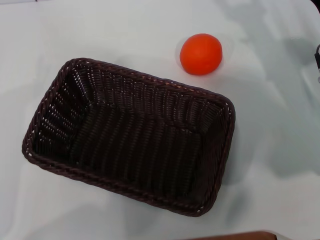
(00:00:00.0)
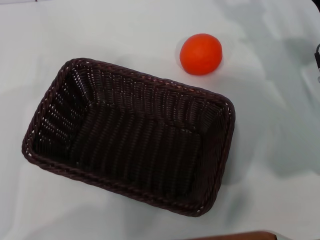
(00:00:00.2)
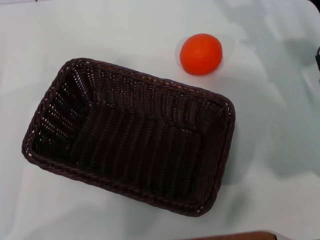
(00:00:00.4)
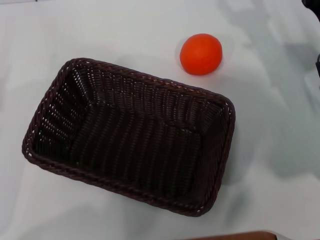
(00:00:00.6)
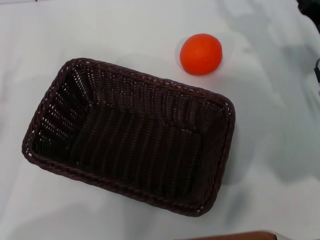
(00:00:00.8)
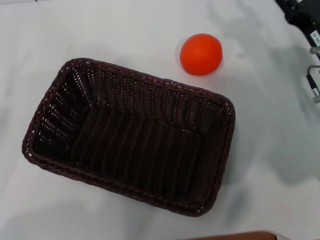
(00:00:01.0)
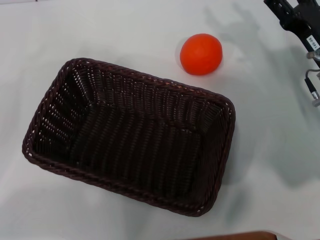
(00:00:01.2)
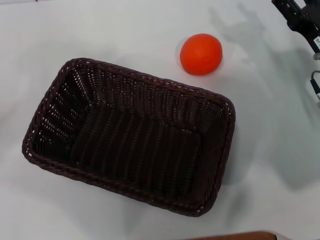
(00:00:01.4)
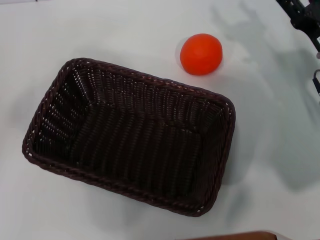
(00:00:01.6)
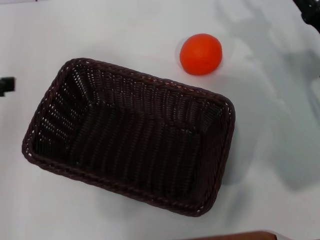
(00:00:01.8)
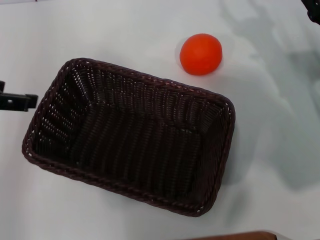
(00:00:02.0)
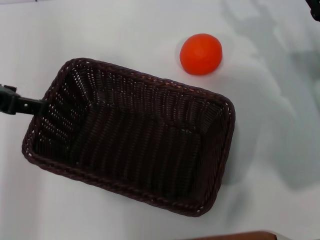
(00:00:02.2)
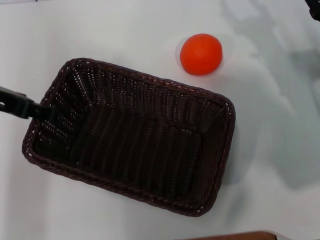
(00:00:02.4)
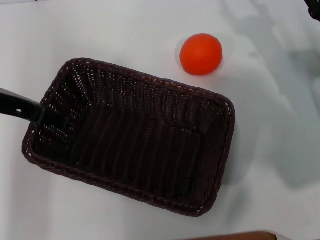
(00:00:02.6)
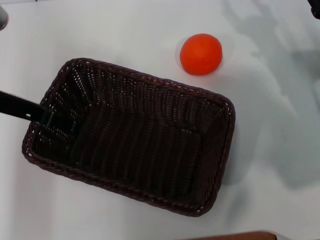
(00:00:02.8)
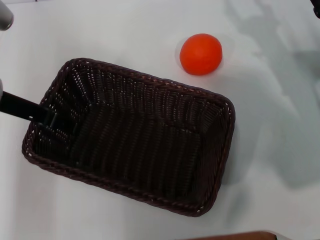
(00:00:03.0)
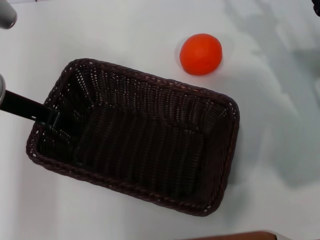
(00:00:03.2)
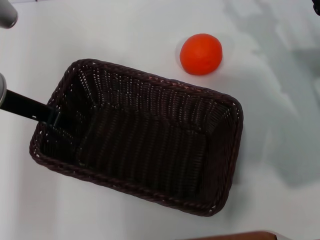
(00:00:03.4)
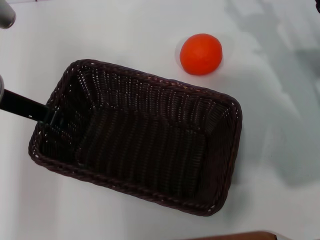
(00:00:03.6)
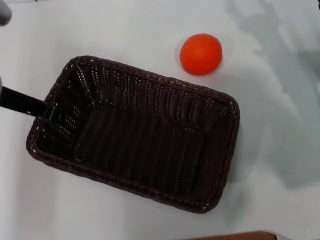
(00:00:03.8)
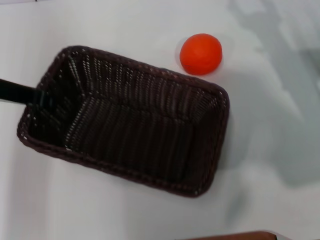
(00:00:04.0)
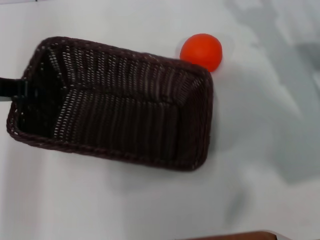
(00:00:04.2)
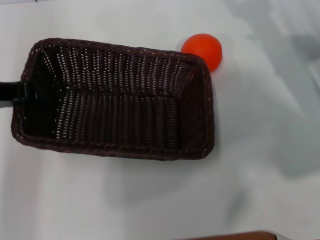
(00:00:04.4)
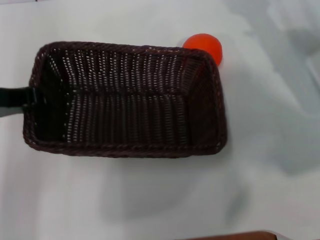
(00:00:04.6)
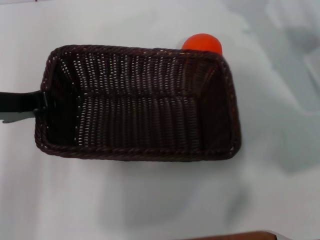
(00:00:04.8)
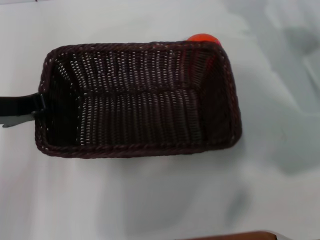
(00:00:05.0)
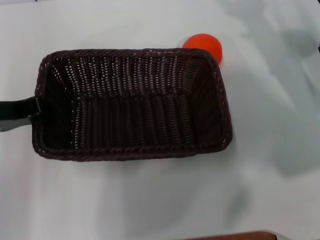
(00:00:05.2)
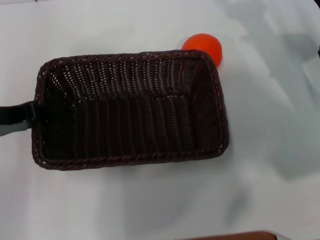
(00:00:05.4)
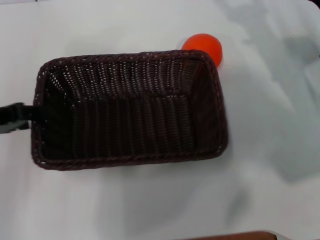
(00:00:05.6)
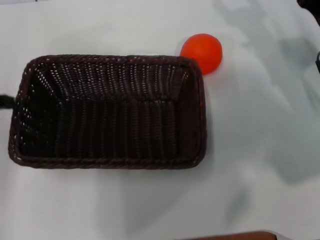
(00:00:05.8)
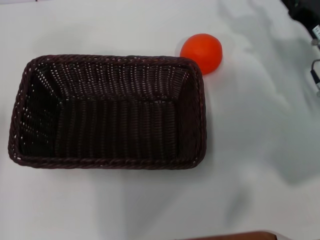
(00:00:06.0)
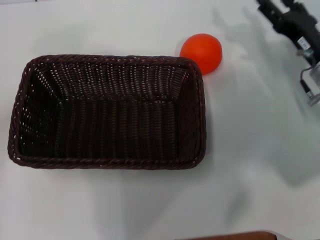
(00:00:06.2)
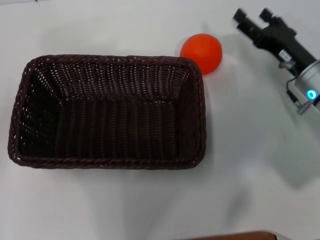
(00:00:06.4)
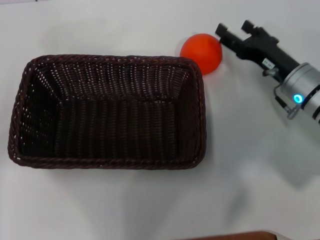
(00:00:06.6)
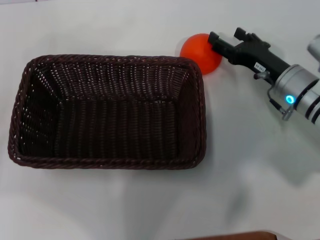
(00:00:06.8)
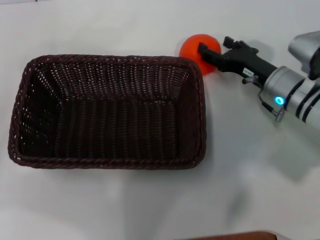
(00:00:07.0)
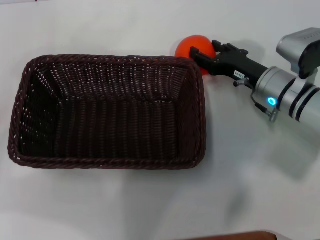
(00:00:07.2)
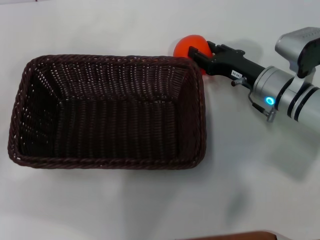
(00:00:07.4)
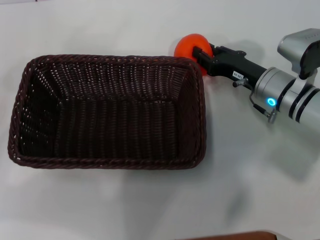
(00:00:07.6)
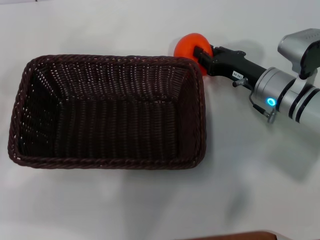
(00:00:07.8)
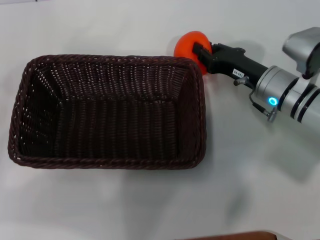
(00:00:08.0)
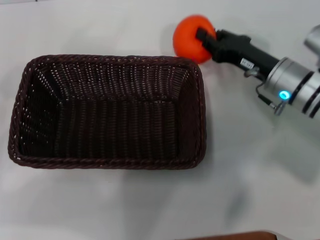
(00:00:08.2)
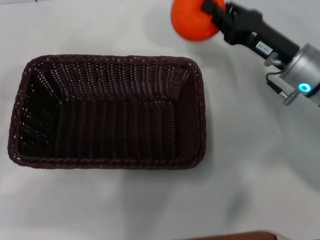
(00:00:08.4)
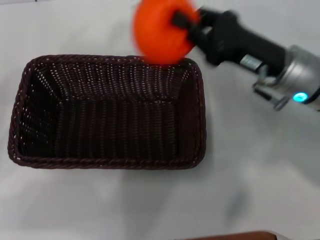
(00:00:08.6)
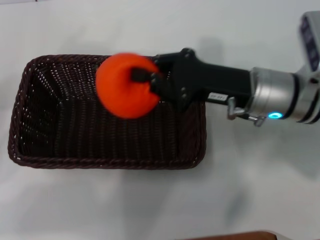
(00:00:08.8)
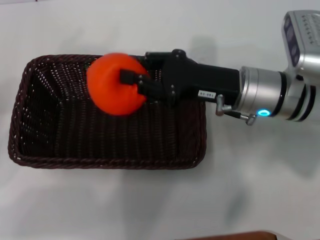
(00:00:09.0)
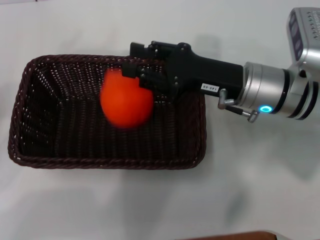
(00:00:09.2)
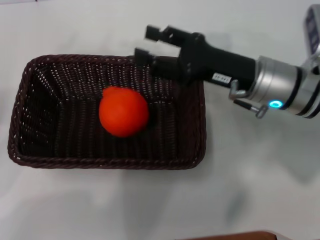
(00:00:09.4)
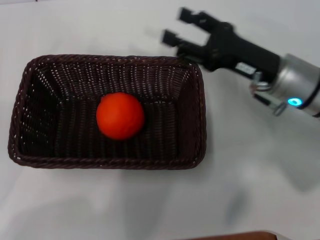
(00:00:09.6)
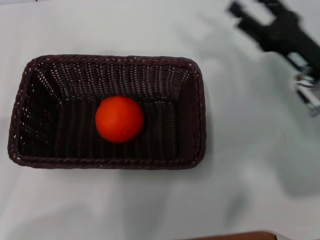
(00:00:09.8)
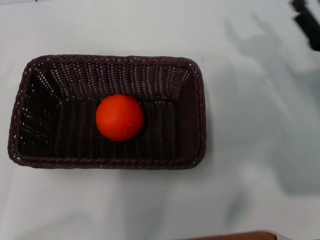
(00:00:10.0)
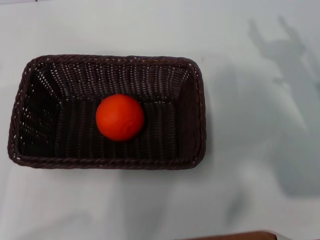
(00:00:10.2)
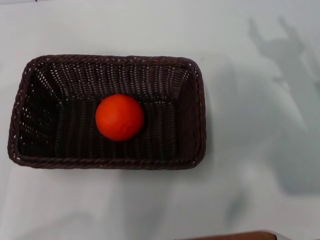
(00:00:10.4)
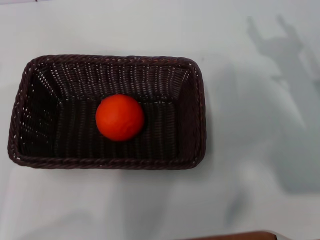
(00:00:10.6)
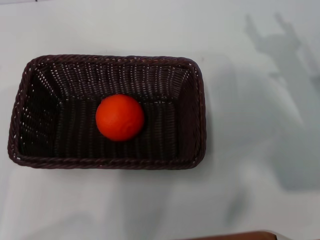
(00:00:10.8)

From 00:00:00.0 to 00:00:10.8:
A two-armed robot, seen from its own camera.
Task of the whole recording: the left gripper pick up the black basket and place it horizontally in the middle of the table, the right gripper pick up the orange and place it into the black basket.
Step, from 00:00:00.0 to 00:00:04.0: Pick up the dark basket with the left gripper.
Step, from 00:00:04.2 to 00:00:05.6: Place the dark basket in the center of view with the left gripper.
Step, from 00:00:05.8 to 00:00:08.2: Pick up the orange with the right gripper.
Step, from 00:00:08.4 to 00:00:09.2: Place the orange into the dark basket with the right gripper.
From 00:00:00.0 to 00:00:01.6: The left gripper is displaced upward by some 15 cm.
From 00:00:01.6 to 00:00:03.0: The left gripper travels to the right and forward by some 15 cm.
From 00:00:03.0 to 00:00:04.6: The left gripper closes.
From 00:00:04.6 to 00:00:06.2: The left gripper goes about 10 cm to the left, and opens.
From 00:00:06.2 to 00:00:07.8: The right gripper goes roughly 5 cm to the left, and closes its fingers; the left gripper ends up some 5 cm from where it was.
From 00:00:07.8 to 00:00:09.2: The right gripper shifts about 5 cm upward.
From 00:00:09.2 to 00:00:10.8: The left gripper shifts about 5 cm downward; the right gripper is displaced to the right by approximately 15 cm, and opens its fingers.
